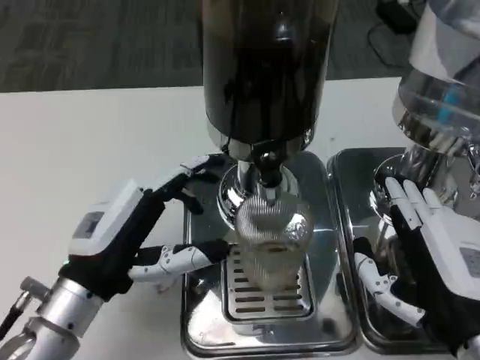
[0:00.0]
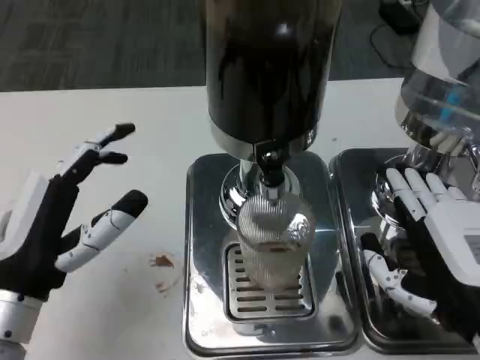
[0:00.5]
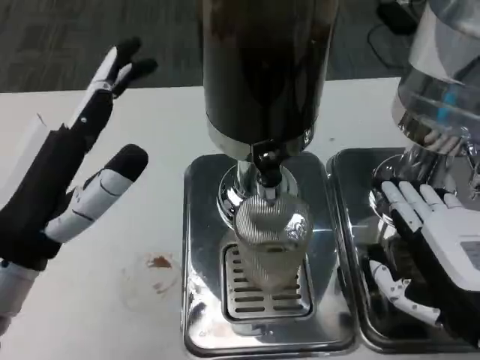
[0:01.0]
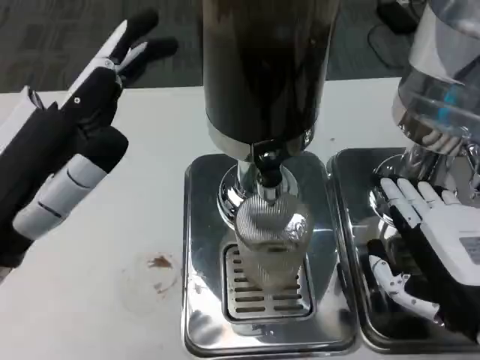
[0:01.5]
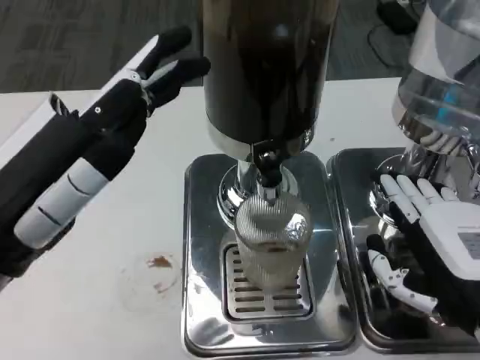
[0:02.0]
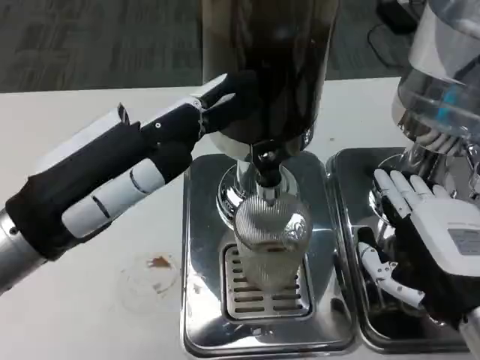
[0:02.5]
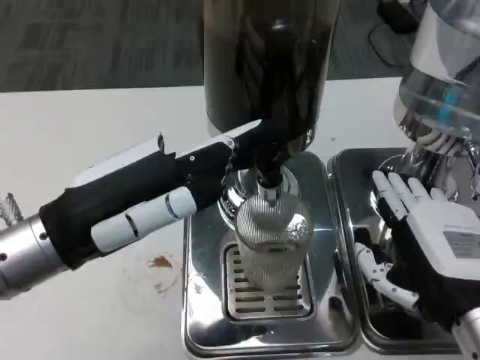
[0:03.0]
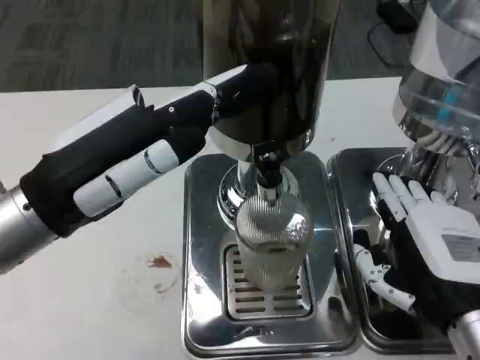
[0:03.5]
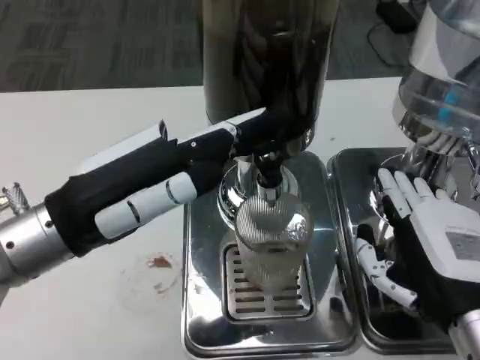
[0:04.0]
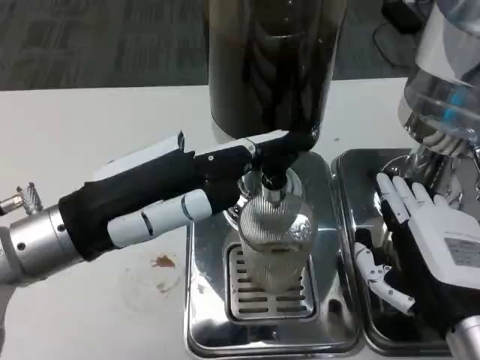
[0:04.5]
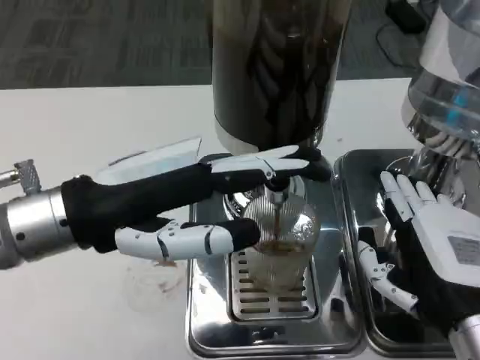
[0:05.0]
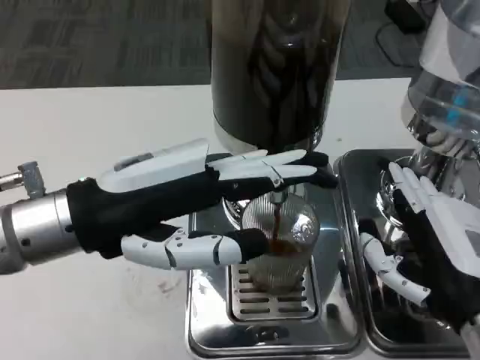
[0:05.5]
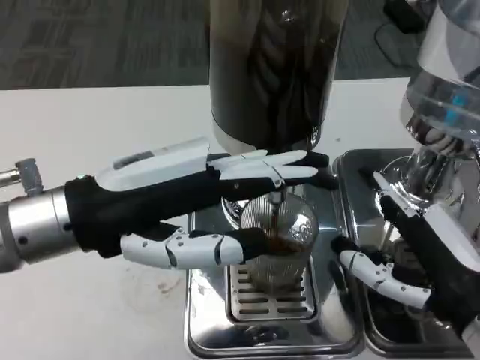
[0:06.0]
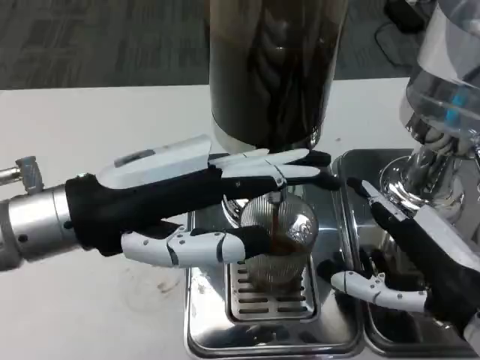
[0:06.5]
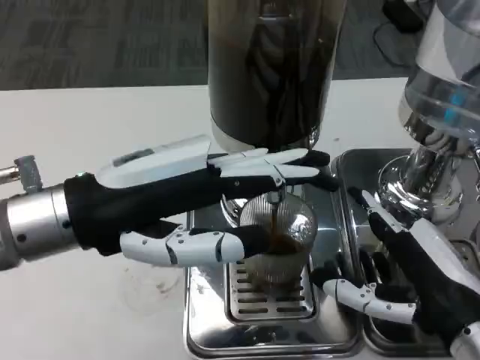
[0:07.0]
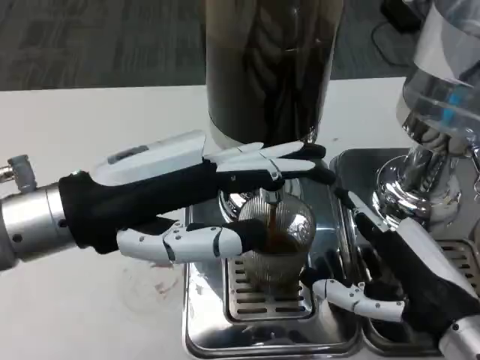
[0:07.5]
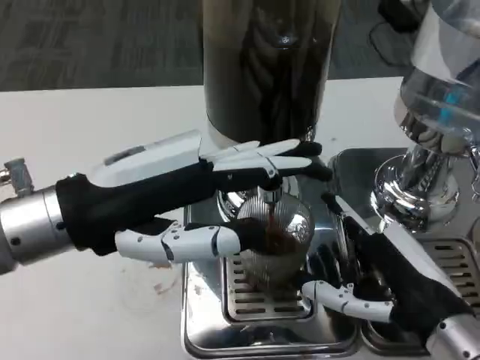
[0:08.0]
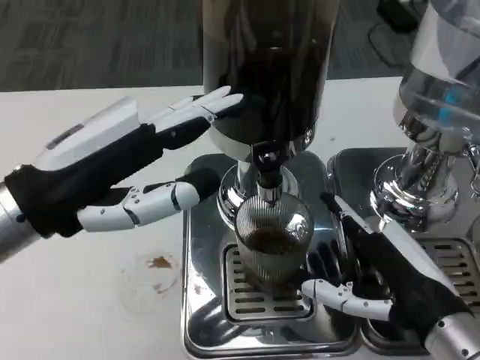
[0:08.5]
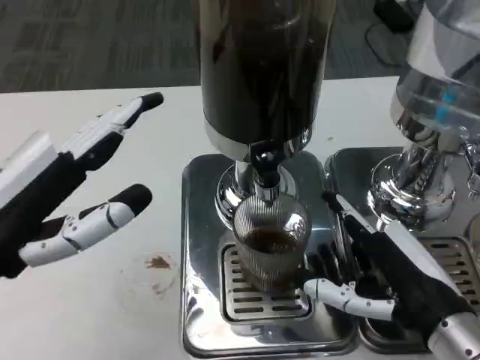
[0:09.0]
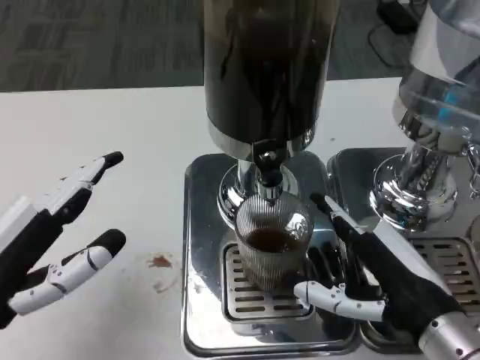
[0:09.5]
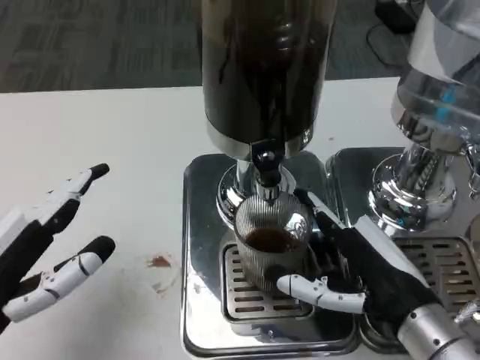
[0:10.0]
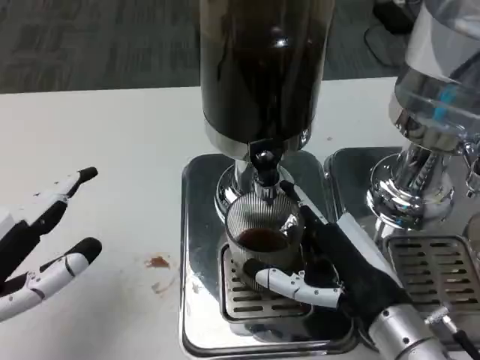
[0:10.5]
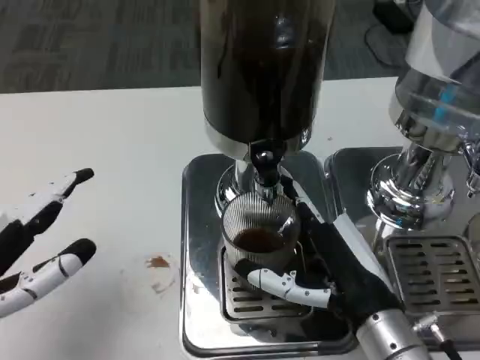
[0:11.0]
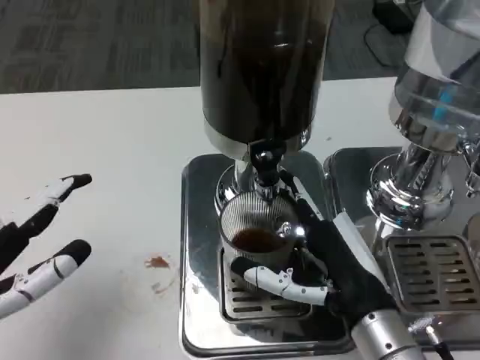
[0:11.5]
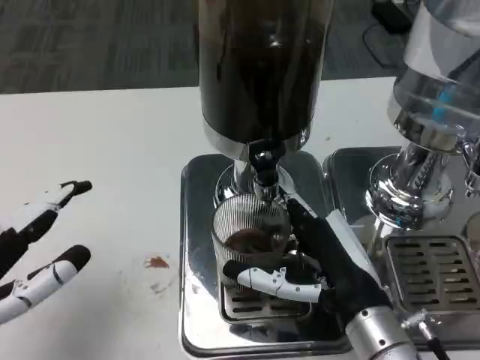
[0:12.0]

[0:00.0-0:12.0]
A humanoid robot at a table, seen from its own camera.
Task of the whole recording: Grasp the cup under the faucet to collect the drink, then remove the cup.
0:00.0 to 0:02.0: The left hand is displaced upward by approximately 15 cm.
0:02.0 to 0:04.0: The left hand travels forward by about 5 cm.
0:08.0 to 0:10.0: The left hand moves downward, backward and to the left, about 15 cm.
0:10.0 to 0:12.0: The right hand shifts by roughly 5 cm.

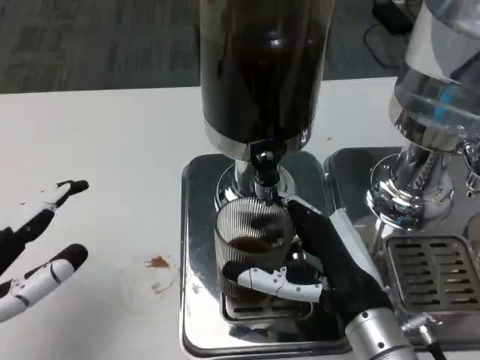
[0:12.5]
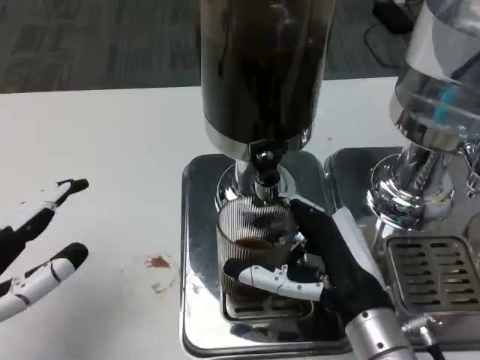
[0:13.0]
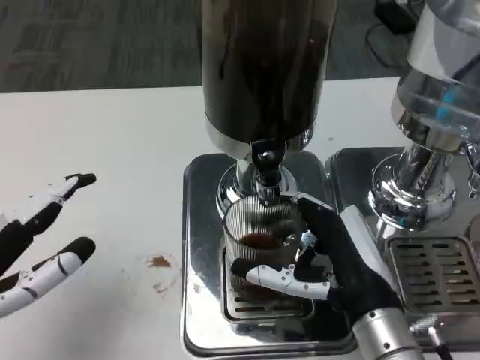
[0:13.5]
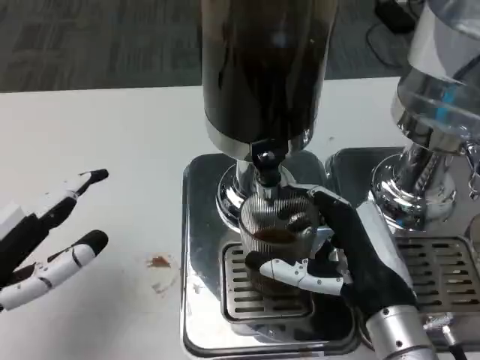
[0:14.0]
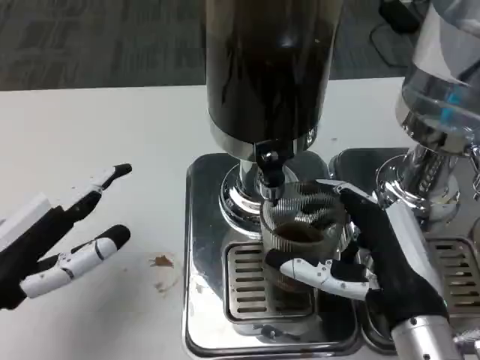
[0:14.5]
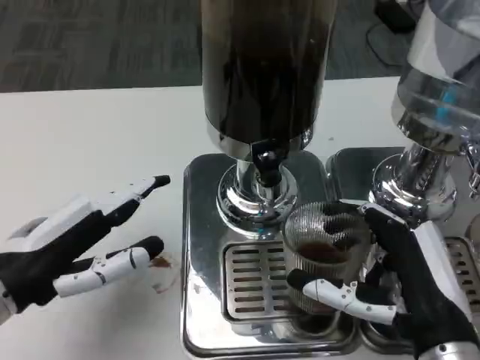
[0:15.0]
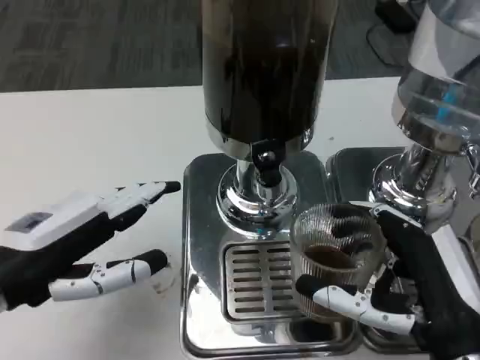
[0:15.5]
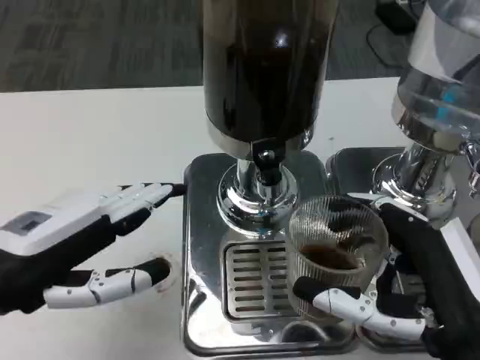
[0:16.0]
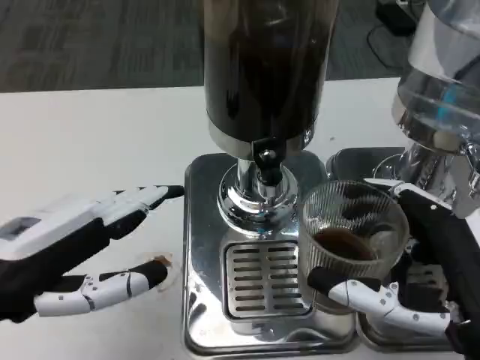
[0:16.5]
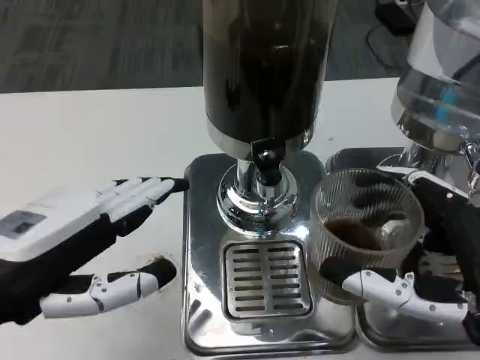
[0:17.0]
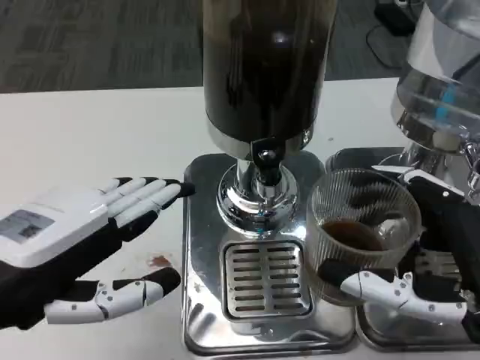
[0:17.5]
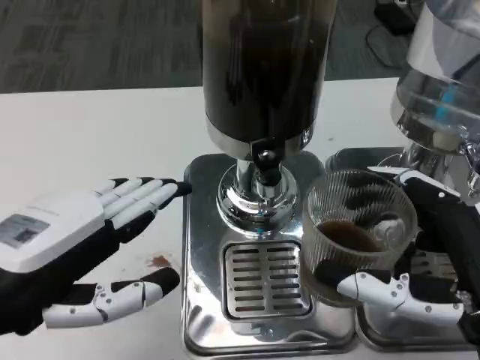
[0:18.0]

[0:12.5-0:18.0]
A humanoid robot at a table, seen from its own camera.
Task of the whole recording: Grasp the cup under the faucet to collect the drink, then remove the cup.
0:14.5 to 0:16.0: The right hand goes approximately 5 cm backward.
0:16.0 to 0:18.0: The left hand shifts by about 5 cm.

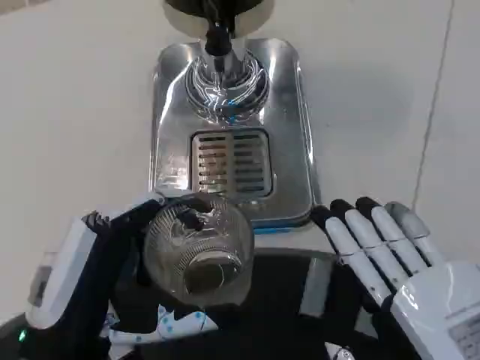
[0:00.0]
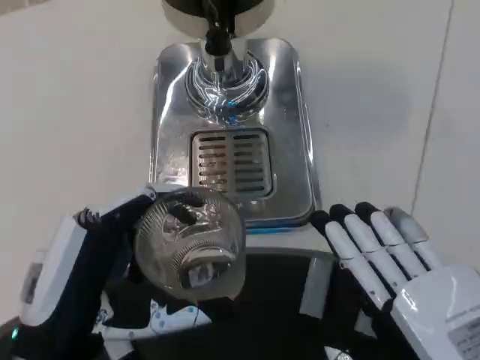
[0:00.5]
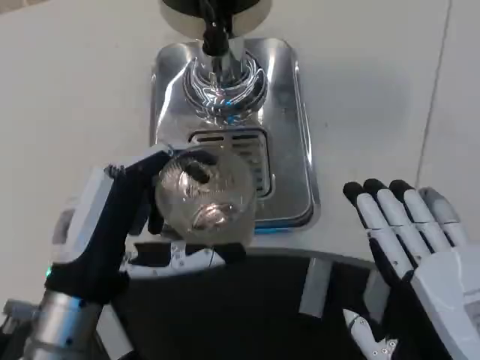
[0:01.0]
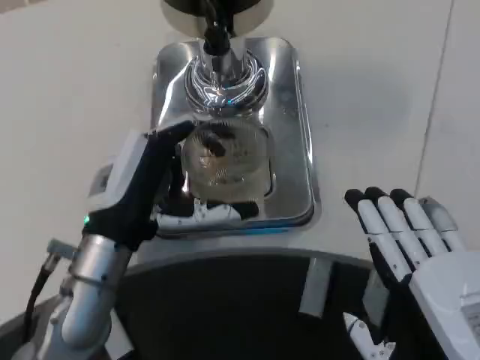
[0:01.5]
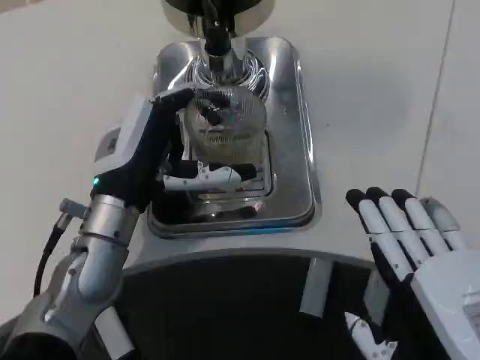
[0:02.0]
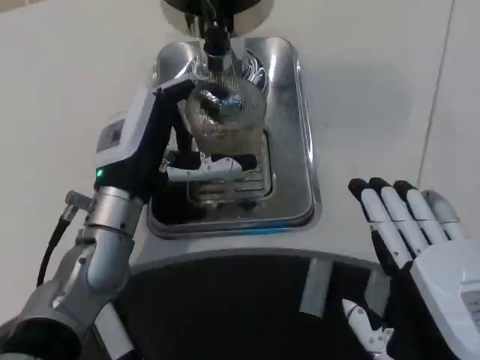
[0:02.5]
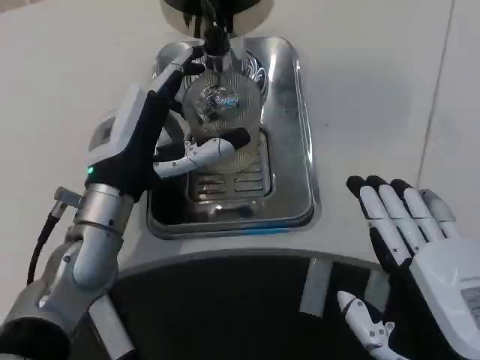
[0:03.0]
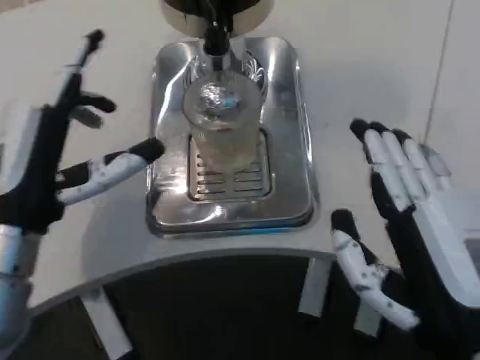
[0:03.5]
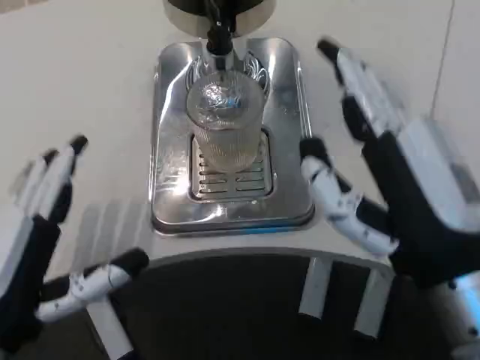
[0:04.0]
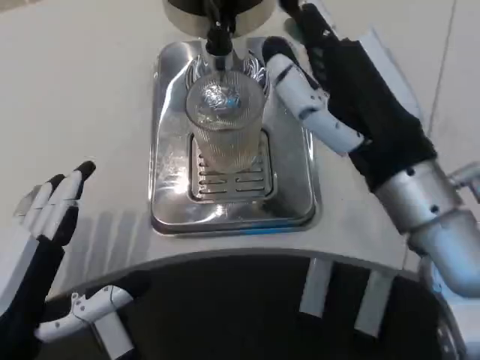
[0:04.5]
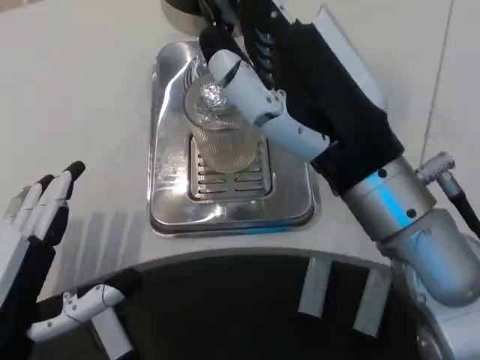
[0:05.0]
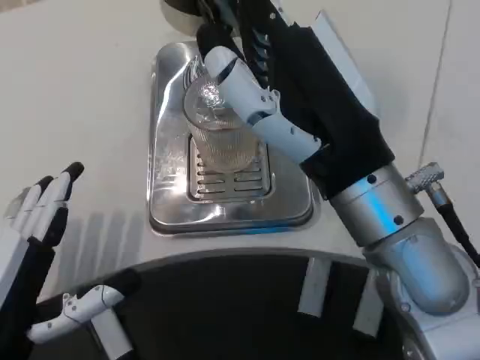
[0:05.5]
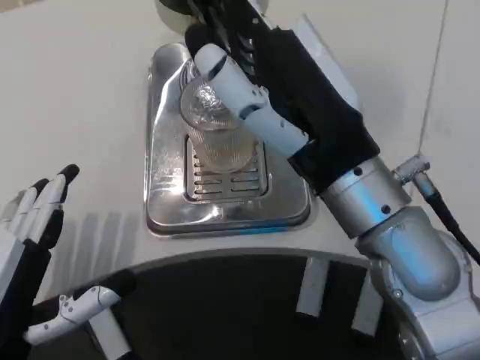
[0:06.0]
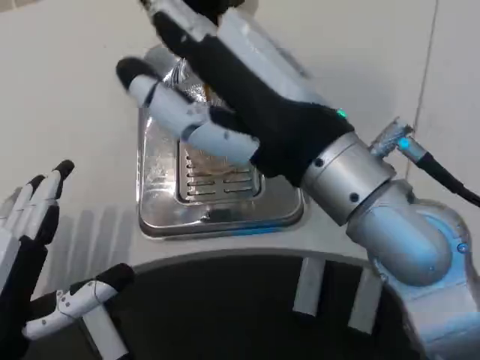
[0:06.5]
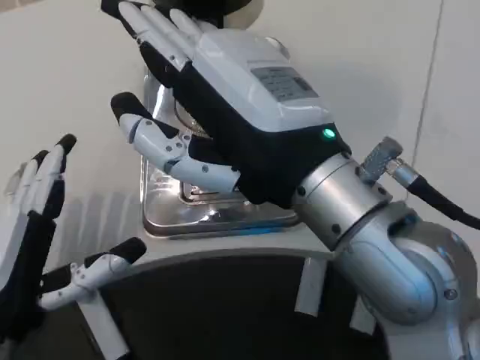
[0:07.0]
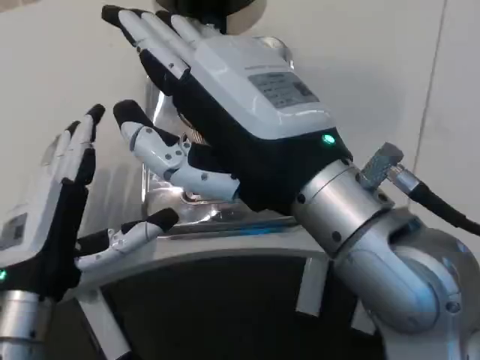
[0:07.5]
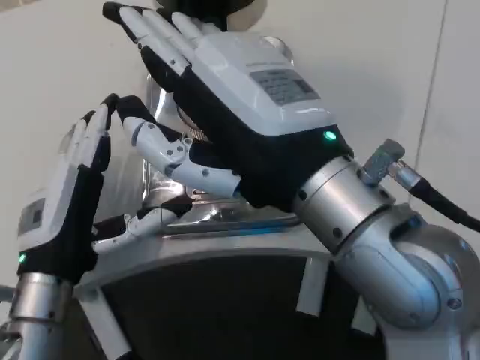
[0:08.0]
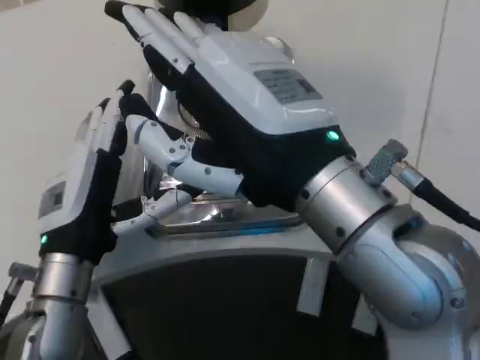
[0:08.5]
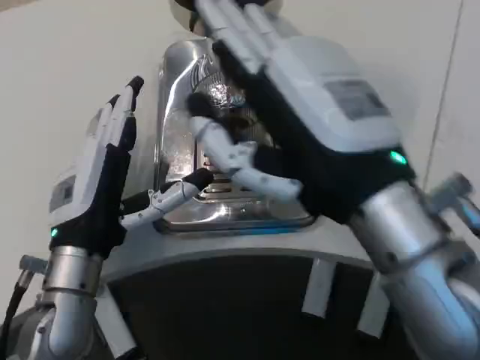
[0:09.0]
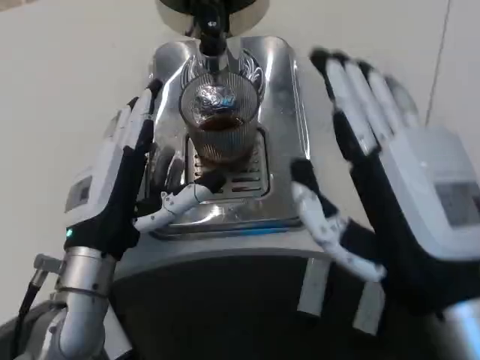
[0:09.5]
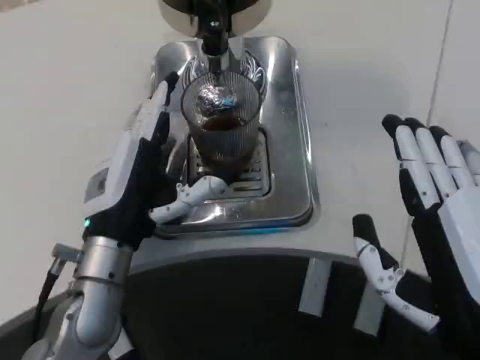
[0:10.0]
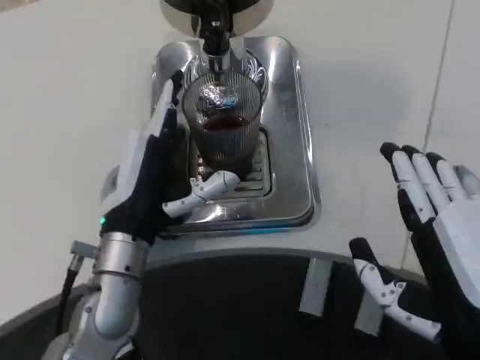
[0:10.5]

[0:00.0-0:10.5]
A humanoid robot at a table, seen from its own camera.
Task of the whole recording: Grasp the cup under the faucet to collect the drink, then remove the cup.
0:00.0 to 0:02.0: The left hand travels forward by some 15 cm.
0:02.0 to 0:04.0: The left hand is displaced backward and to the left by roughly 15 cm; the right hand travels forward by approximately 10 cm.
0:04.0 to 0:06.5: The right hand is displaced upward and to the left by roughly 10 cm.
0:06.5 to 0:08.5: The left hand heads forward and to the right, covering roughly 10 cm.
0:08.5 to 0:10.5: The right hand shifts approximately 15 cm downward, to the right and backward, while the left hand ends up roughly 5 cm from where it was.
